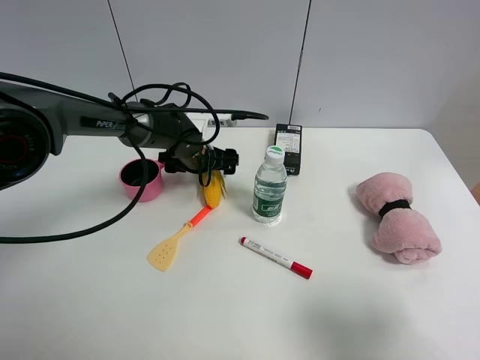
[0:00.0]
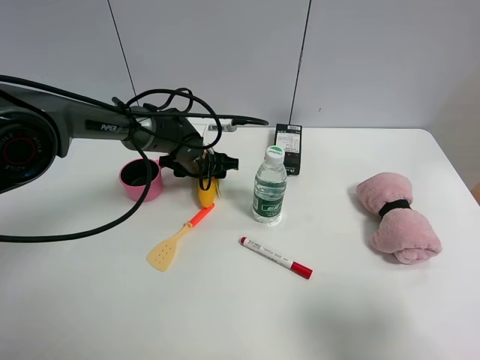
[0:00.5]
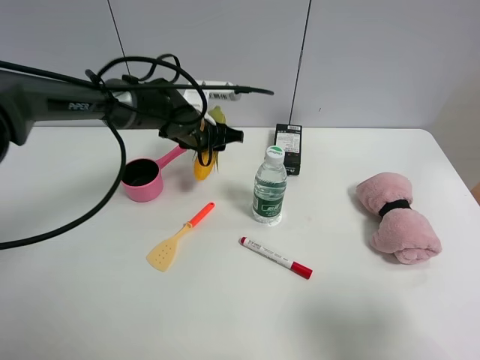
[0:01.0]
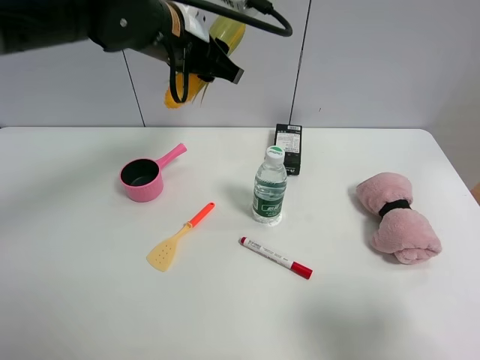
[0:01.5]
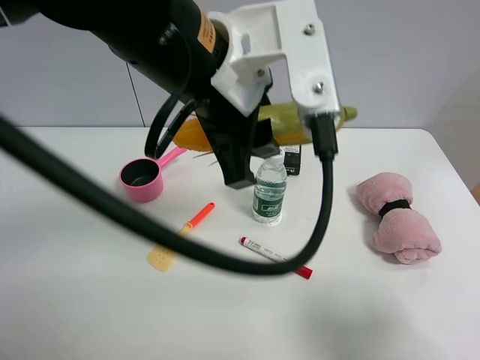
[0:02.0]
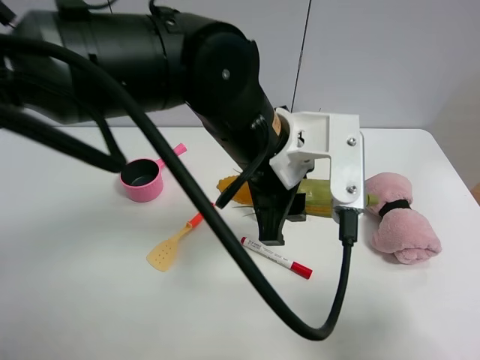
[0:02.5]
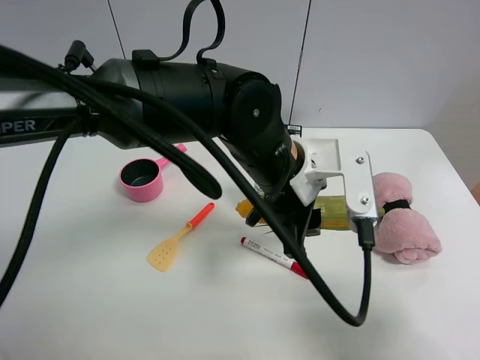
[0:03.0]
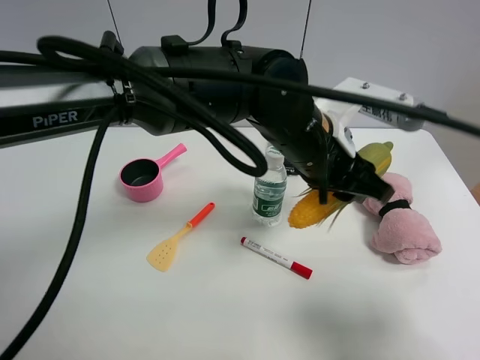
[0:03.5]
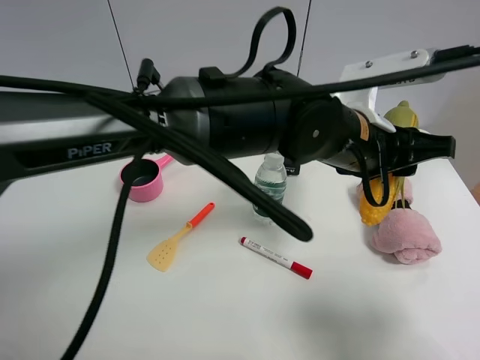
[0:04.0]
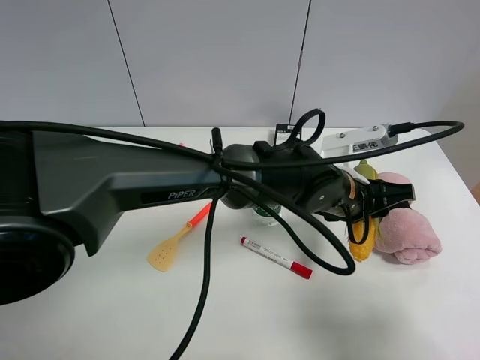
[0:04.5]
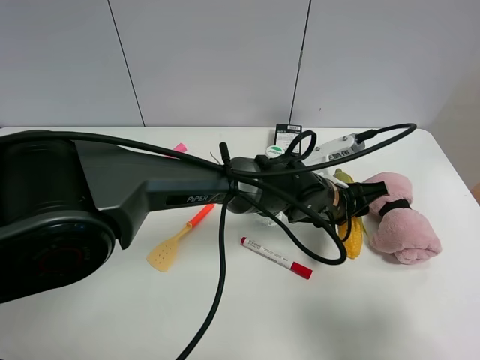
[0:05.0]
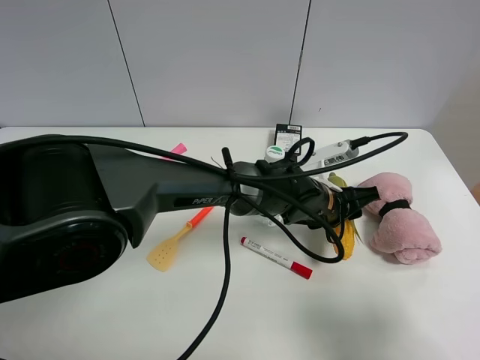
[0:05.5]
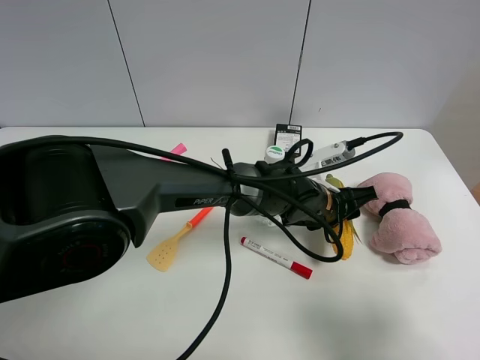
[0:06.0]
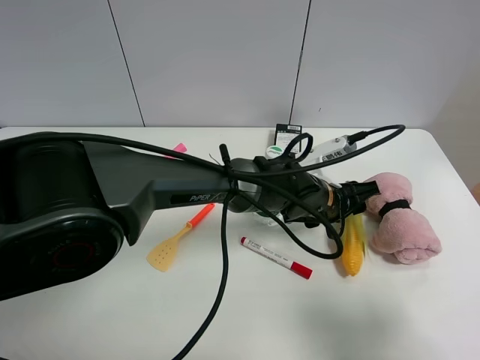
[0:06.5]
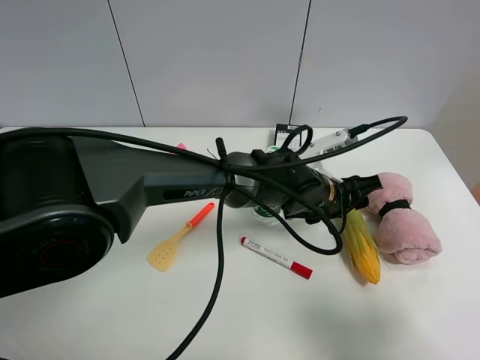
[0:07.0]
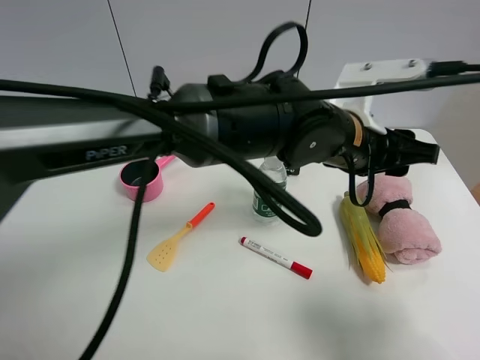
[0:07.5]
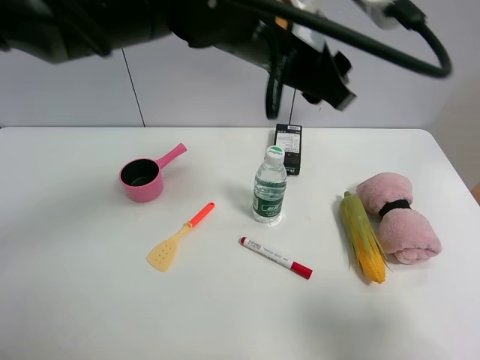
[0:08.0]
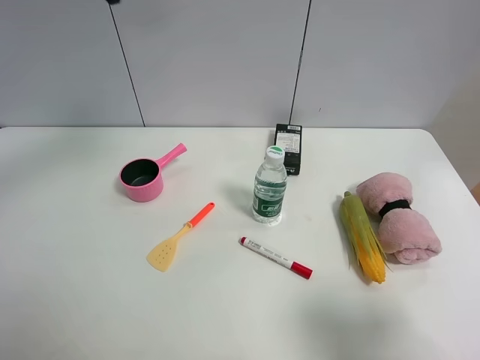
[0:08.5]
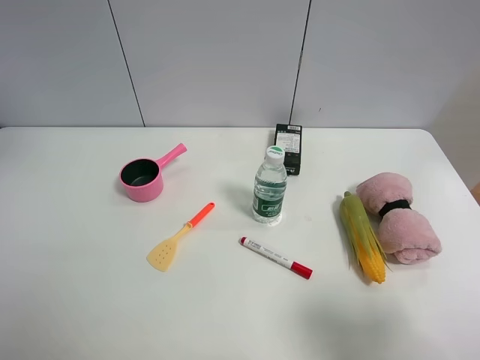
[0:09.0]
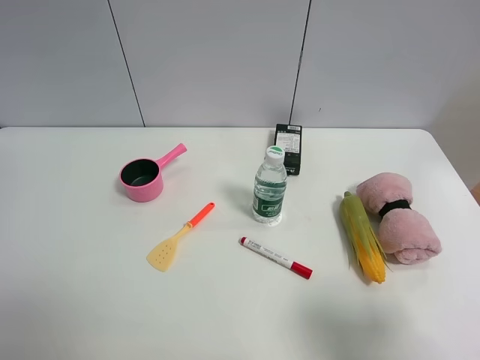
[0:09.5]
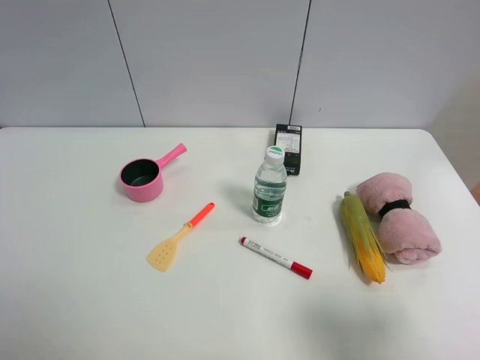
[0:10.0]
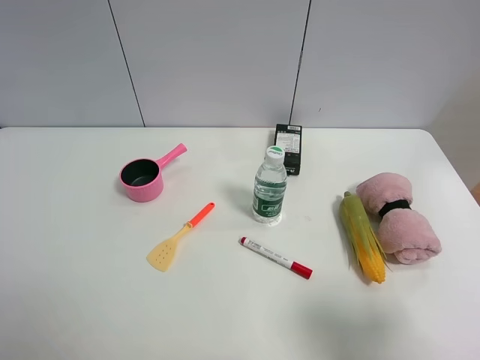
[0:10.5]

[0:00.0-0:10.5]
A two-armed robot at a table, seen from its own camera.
Task of the whole recording: the gripper move the object.
Step, 0:01.0 to 0:06.5: Place the corn on the table with the left gripper.
0:00.0 to 0:02.0: The left gripper is displaced upward and backward by some 35 cm, and closes up.
0:02.0 to 0:04.0: The left gripper heads to the right and downward, covering approximately 15 cm.
0:04.0 to 0:06.5: The left gripper shifts some 15 cm downward.
0:06.5 to 0:08.5: The left gripper shifts some 40 cm upward and to the left.
0:08.5 to 0:10.5: The left gripper shifts roughly 35 cm backward and to the left, and opens.

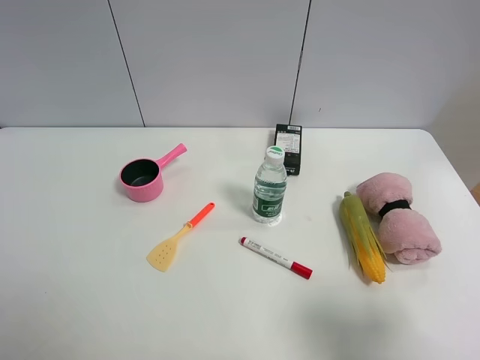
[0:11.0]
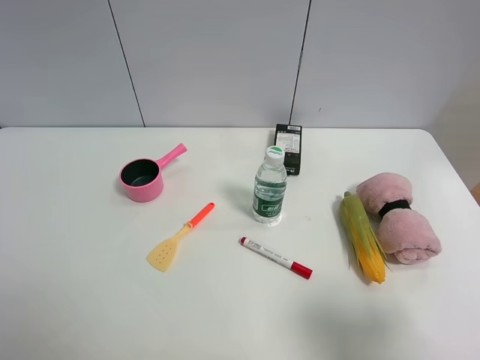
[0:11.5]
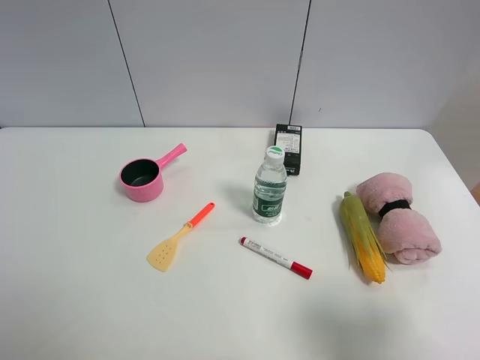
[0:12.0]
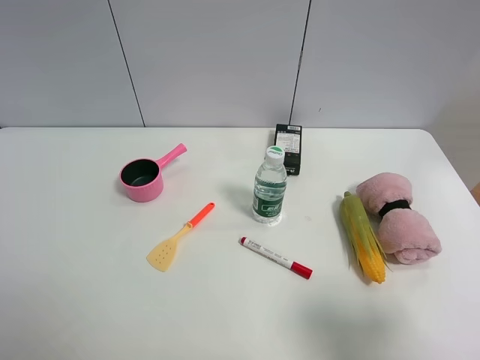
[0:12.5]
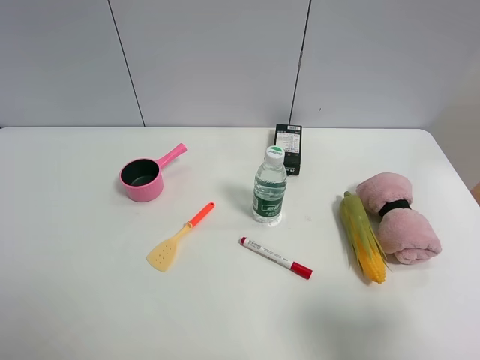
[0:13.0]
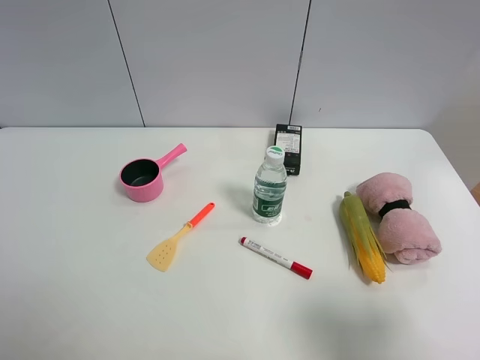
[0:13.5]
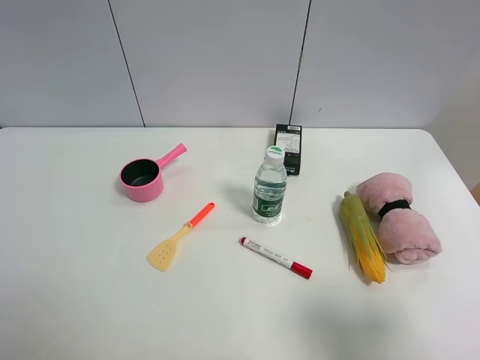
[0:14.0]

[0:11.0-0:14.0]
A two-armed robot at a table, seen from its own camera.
Task of the whole recording: the gripper move the object.
0:12.5 to 0:14.0: Neither gripper changes place.

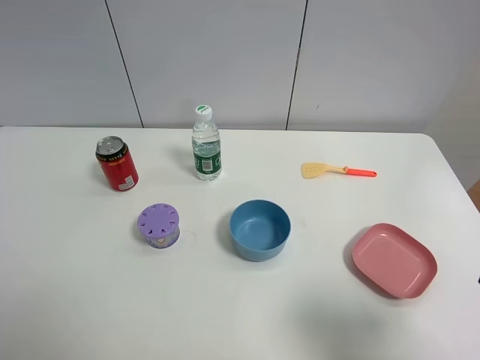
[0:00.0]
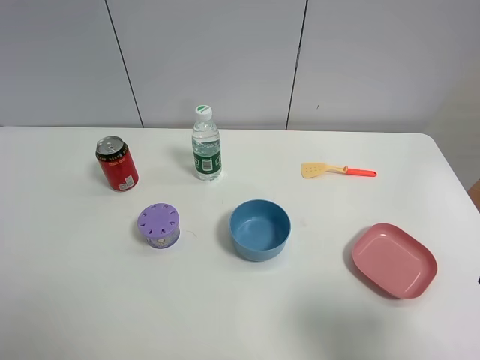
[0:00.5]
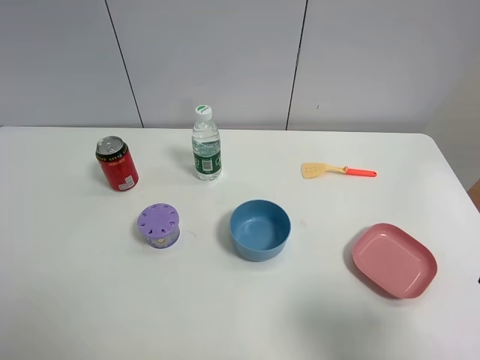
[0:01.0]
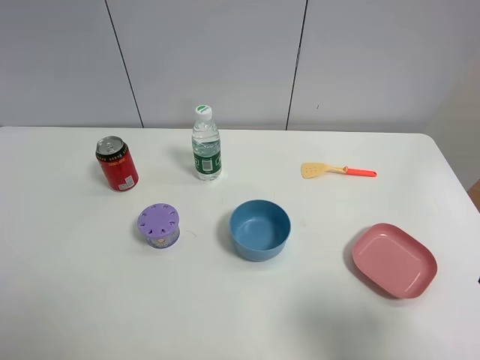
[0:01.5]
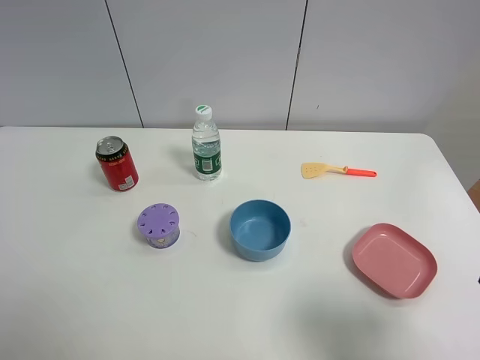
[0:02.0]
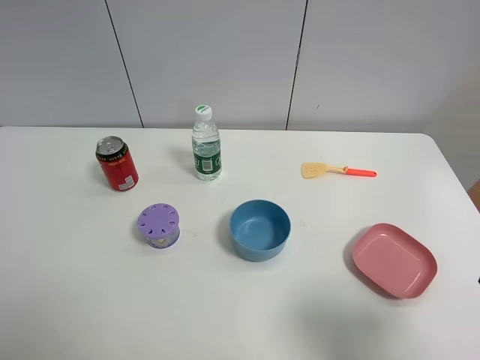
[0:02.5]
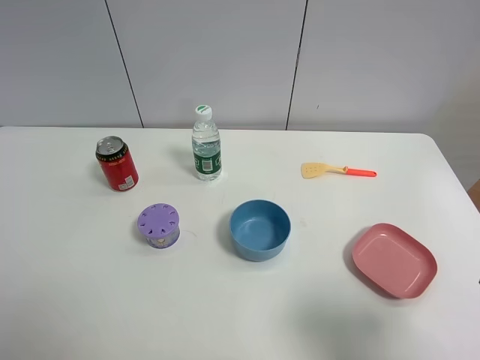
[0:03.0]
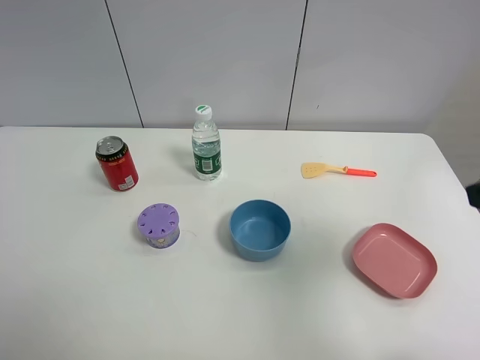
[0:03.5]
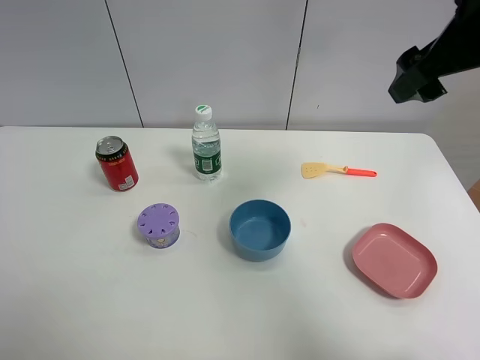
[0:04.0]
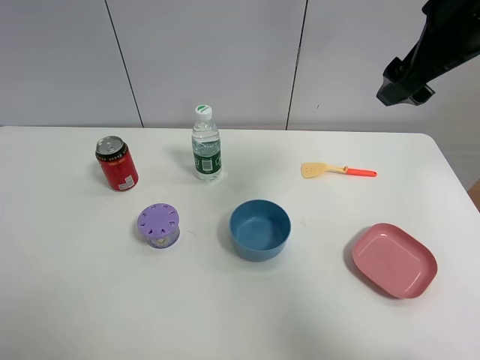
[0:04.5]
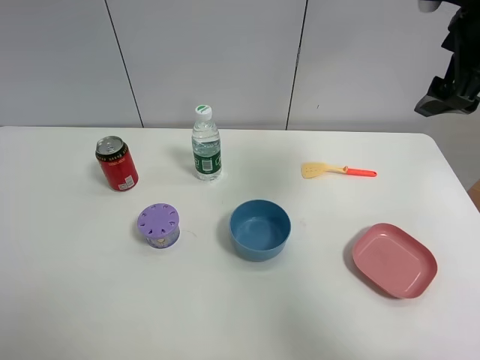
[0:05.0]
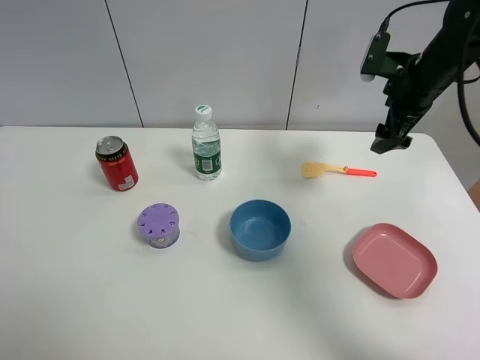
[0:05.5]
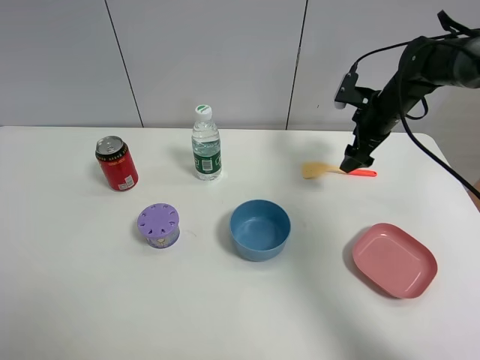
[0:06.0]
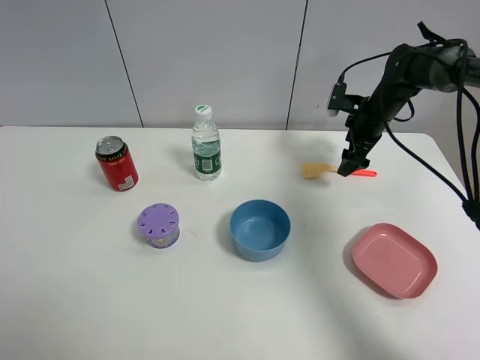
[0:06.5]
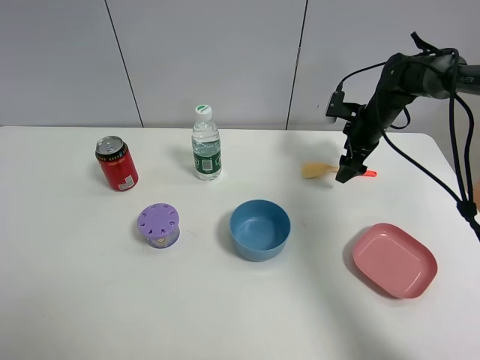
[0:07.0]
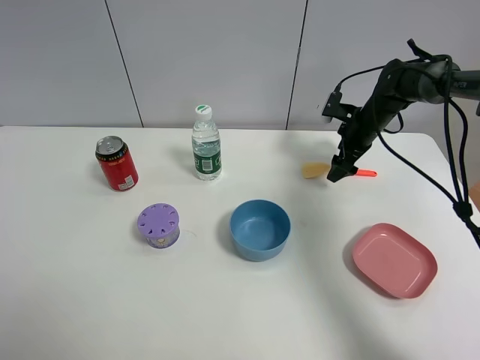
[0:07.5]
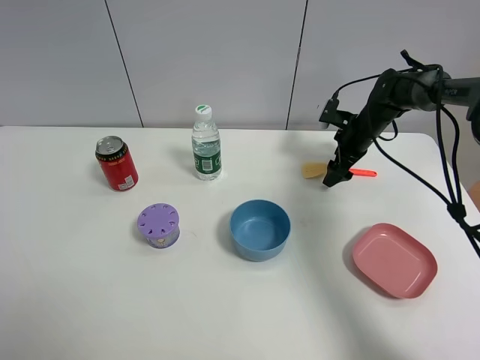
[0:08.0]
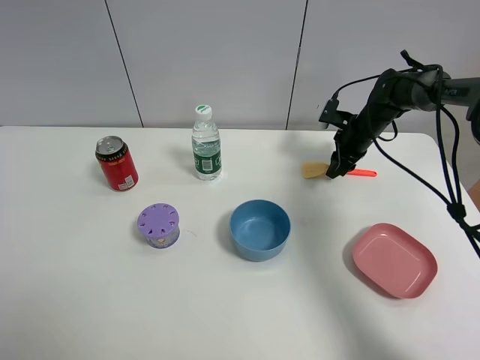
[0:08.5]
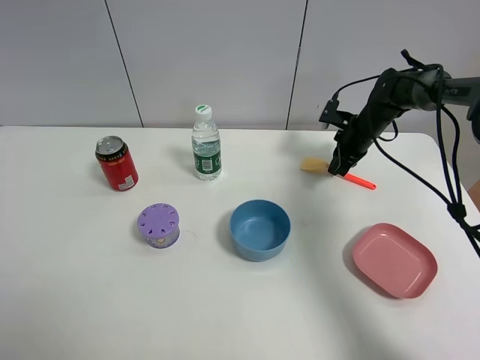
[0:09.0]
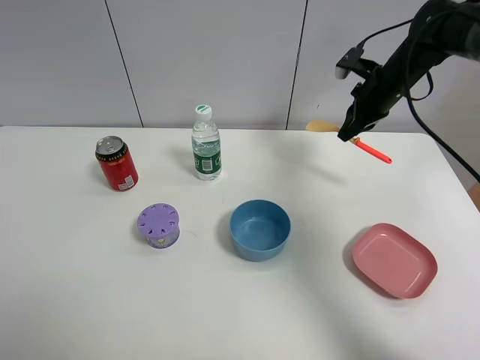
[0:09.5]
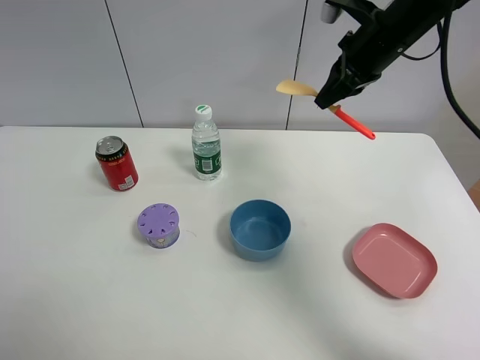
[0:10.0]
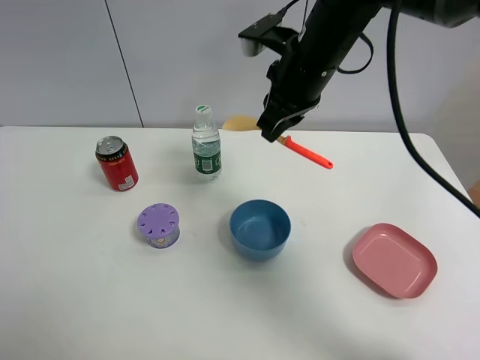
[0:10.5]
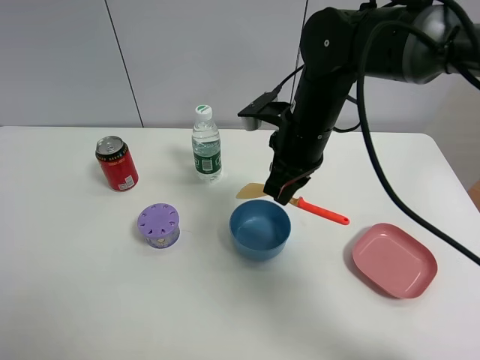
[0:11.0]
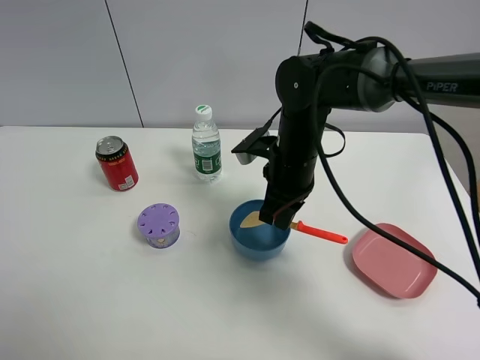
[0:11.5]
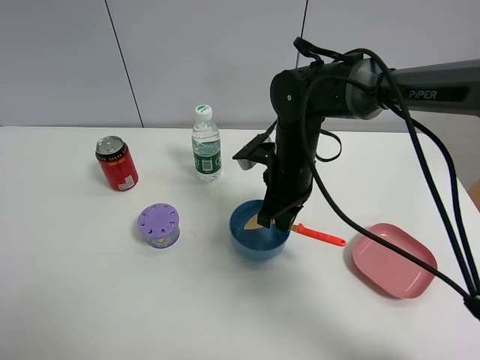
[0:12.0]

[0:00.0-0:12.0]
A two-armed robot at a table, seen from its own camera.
Task of the whole recording: the gripper move the object.
Step, 0:00.0 to 0:08.5: Grasp the cooking shovel with the right gripper.
0:00.0 to 0:02.0: Neither gripper changes place.
0:02.0 to 0:04.0: The right gripper travels forward and upward by approximately 30 cm.
0:04.0 to 0:06.0: The right gripper is displaced downward and forward by approximately 30 cm.
0:06.0 to 0:08.0: The right gripper is displaced downward by about 5 cm.
0:08.0 to 0:10.0: The right gripper moves upward and backward, roughly 25 cm, and closes.
0:10.0 to 0:12.0: The right gripper moves downward, to the left and backward, about 20 cm.
